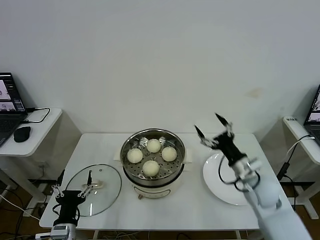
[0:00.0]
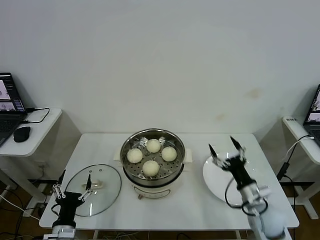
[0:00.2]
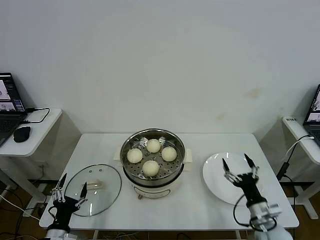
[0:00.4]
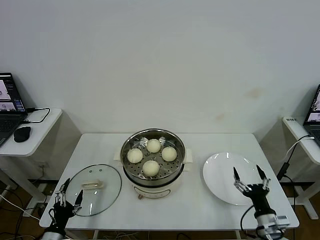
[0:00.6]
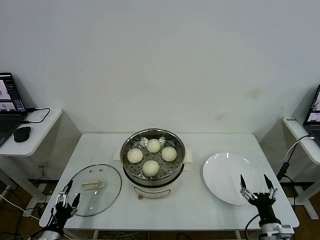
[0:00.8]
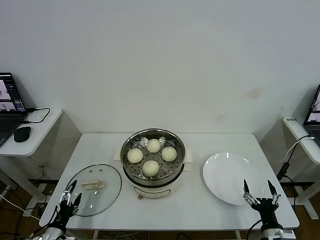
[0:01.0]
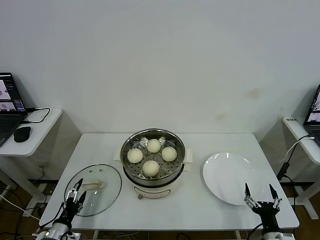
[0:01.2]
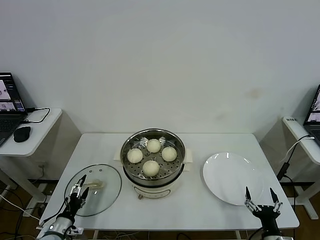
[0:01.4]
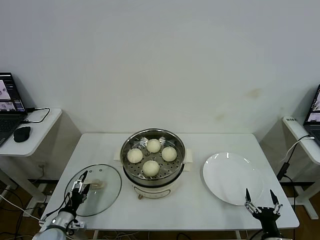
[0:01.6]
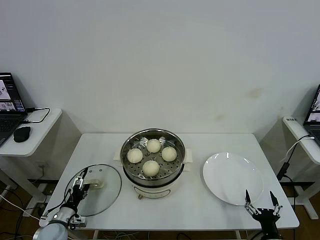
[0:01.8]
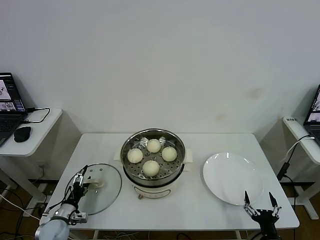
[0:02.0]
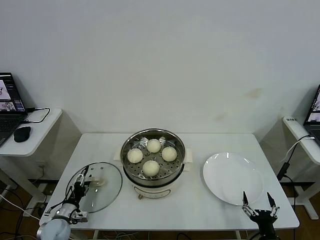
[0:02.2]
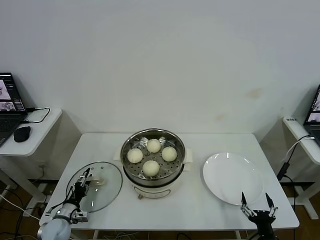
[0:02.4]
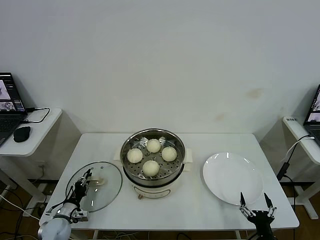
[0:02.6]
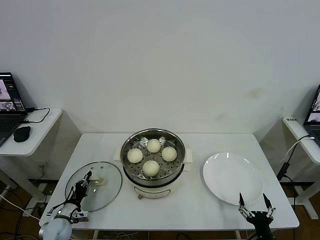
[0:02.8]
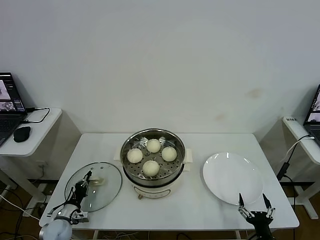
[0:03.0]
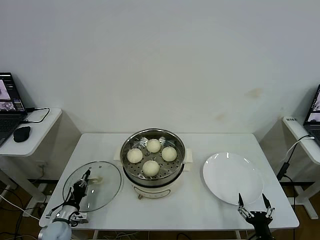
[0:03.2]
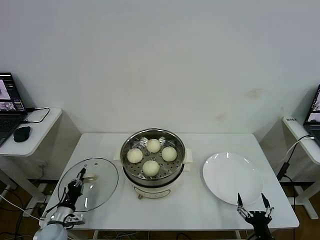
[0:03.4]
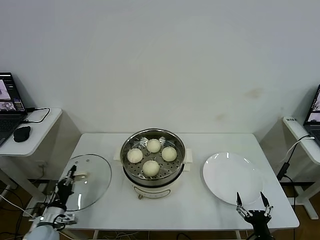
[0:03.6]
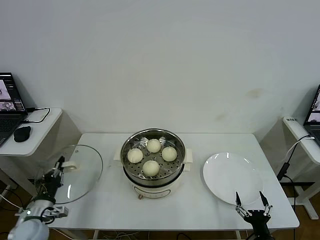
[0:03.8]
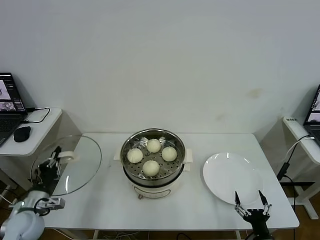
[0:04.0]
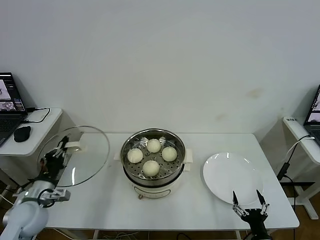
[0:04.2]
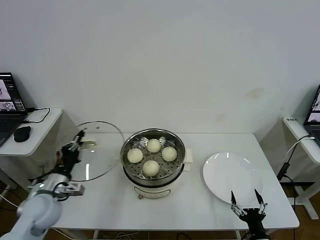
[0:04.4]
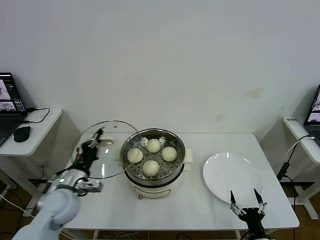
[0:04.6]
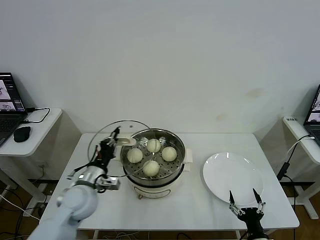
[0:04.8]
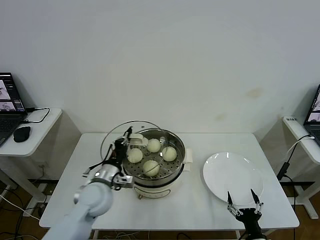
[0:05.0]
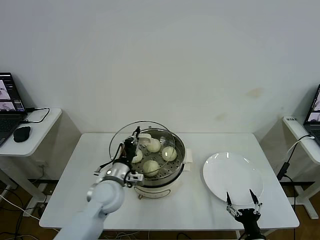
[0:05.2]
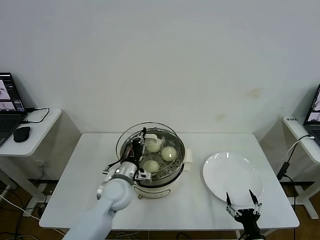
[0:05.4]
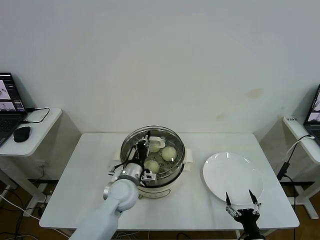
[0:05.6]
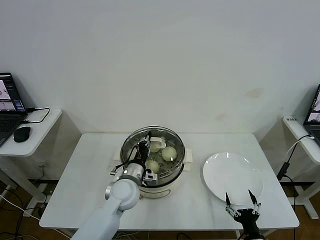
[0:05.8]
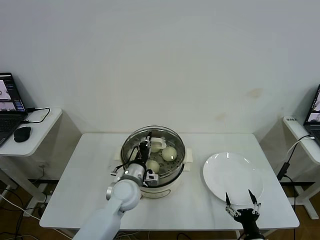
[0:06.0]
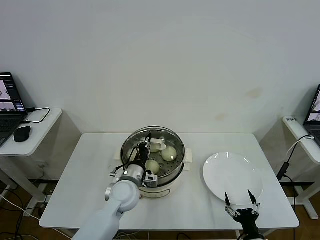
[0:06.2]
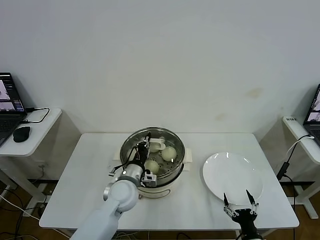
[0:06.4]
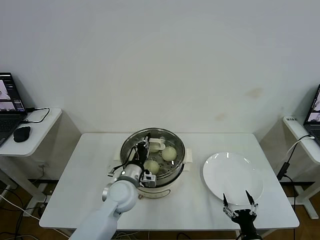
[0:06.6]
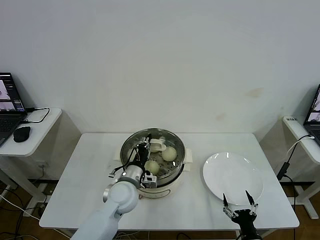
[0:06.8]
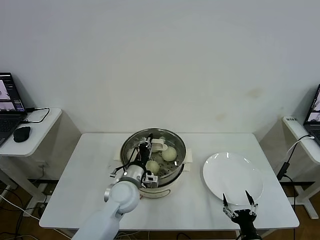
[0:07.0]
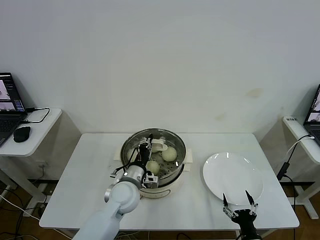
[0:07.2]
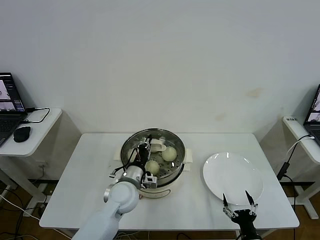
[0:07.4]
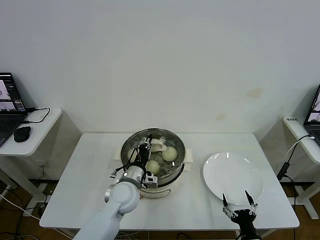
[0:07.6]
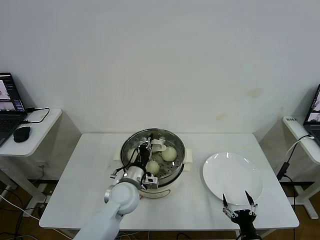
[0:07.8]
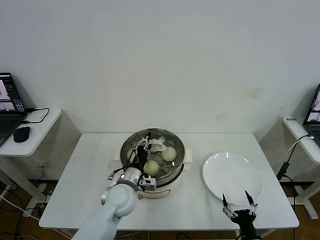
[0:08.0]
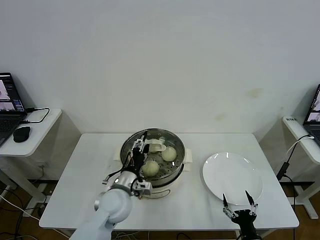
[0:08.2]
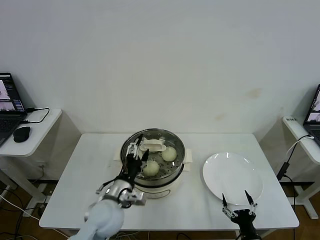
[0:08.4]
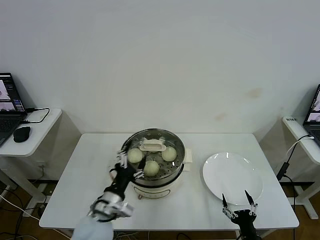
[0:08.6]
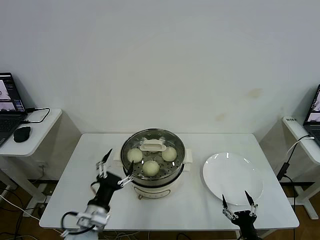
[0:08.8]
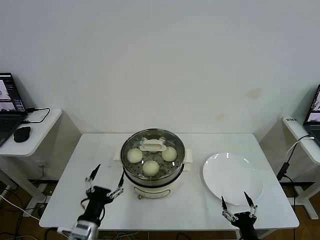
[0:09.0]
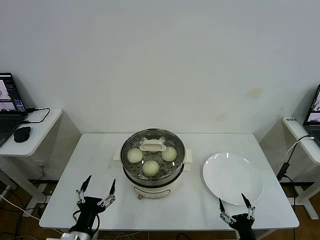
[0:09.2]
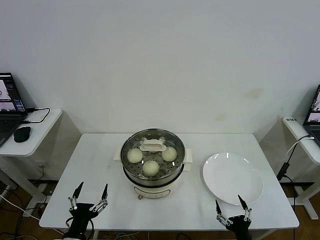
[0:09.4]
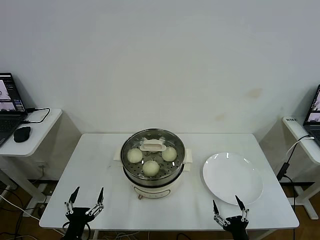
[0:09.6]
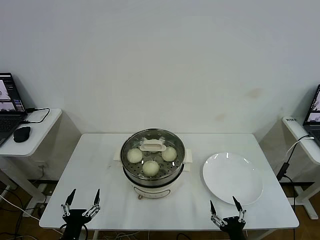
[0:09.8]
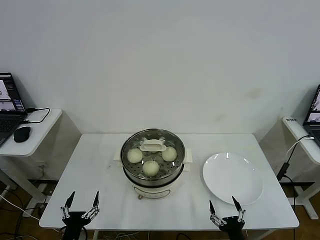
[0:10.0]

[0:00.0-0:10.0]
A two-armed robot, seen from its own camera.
Step, 0:00.0 to 0:02.8: Grasp the pot lid with left gripper.
Step, 0:03.0 to 0:08.2: Place the pot lid on the steamer with left gripper.
0:00.0 to 0:01.4: The left gripper goes about 15 cm to the left and downward; the right gripper goes about 25 cm backward and downward.
0:01.4 to 0:02.8: The left gripper goes some 5 cm forward, and closes.
0:02.8 to 0:04.2: The left gripper shifts roughly 20 cm upward.
0:04.2 to 0:05.8: The left gripper goes about 25 cm to the right.
0:05.8 to 0:07.2: Both grippers stay about where they are.
0:07.2 to 0:08.6: The left gripper goes roughly 10 cm backward and to the left, and opens its fingers.
0:08.6 to 0:10.0: The left gripper shifts roughly 20 cm backward, to the left and downward. The right gripper shifts by approximately 5 cm.

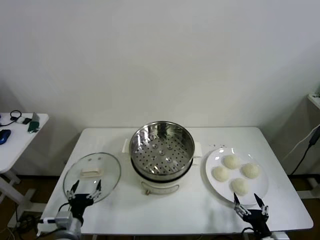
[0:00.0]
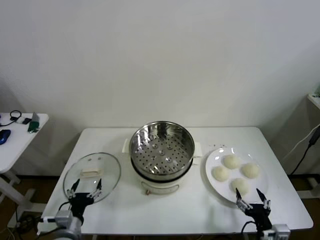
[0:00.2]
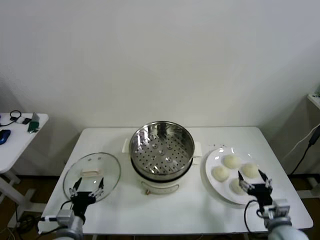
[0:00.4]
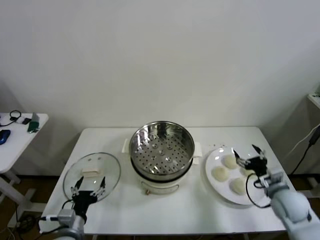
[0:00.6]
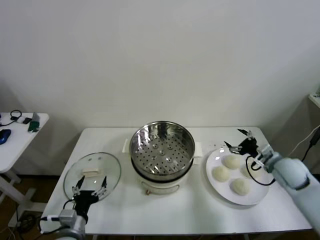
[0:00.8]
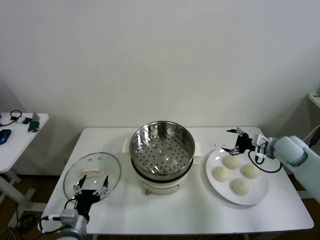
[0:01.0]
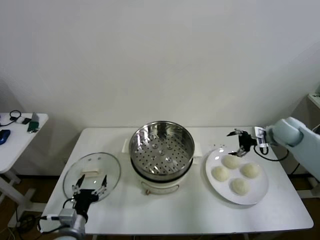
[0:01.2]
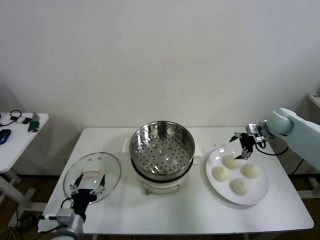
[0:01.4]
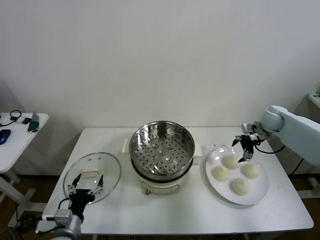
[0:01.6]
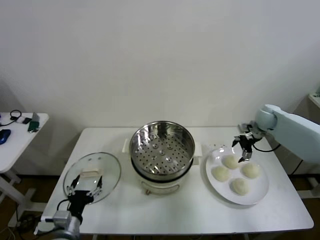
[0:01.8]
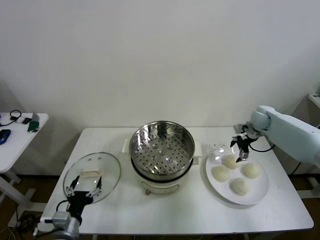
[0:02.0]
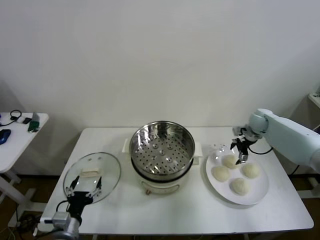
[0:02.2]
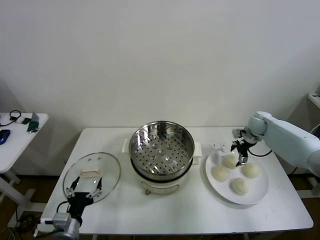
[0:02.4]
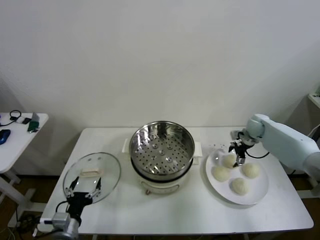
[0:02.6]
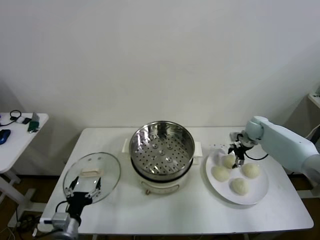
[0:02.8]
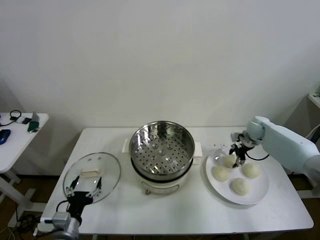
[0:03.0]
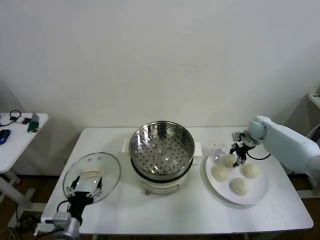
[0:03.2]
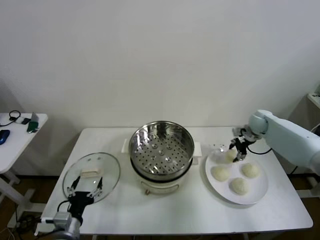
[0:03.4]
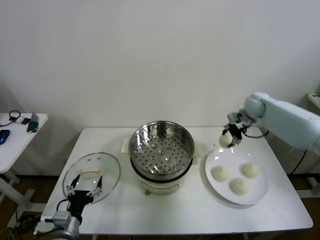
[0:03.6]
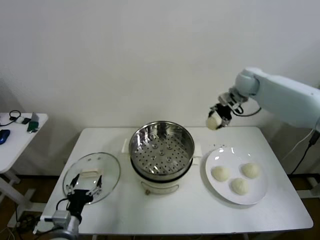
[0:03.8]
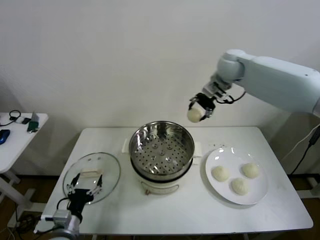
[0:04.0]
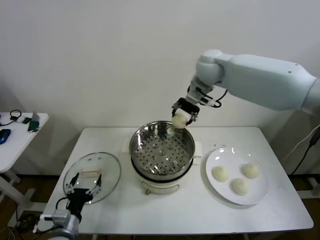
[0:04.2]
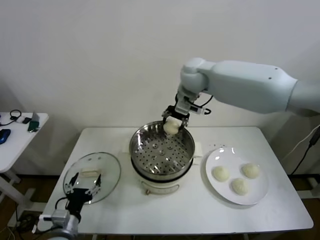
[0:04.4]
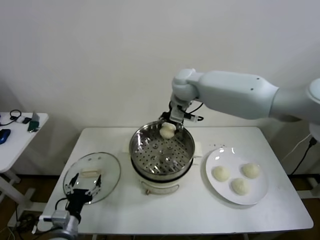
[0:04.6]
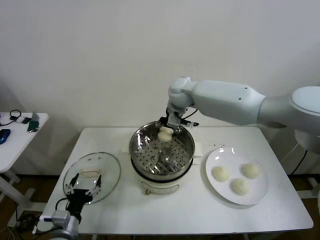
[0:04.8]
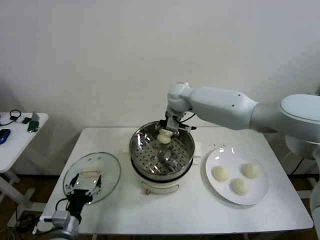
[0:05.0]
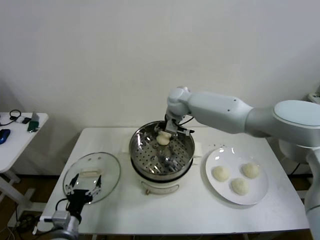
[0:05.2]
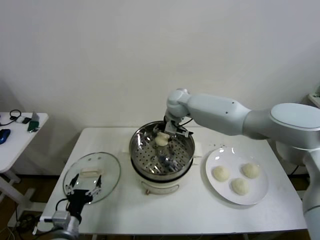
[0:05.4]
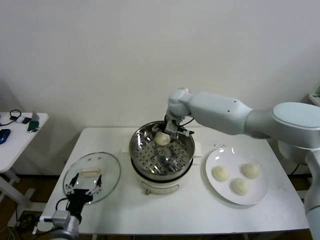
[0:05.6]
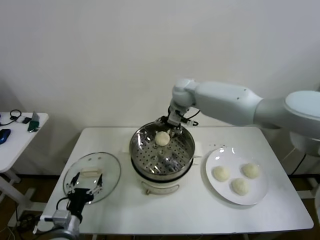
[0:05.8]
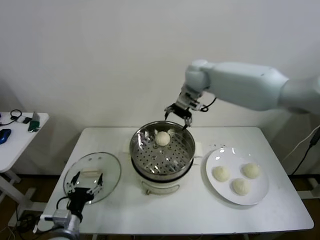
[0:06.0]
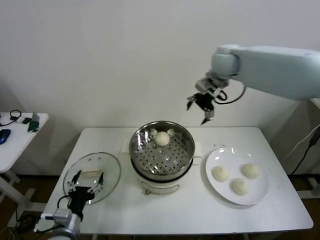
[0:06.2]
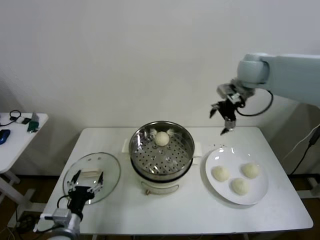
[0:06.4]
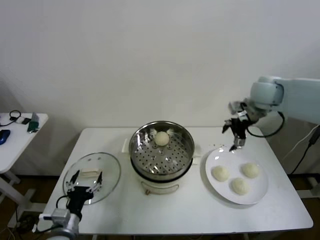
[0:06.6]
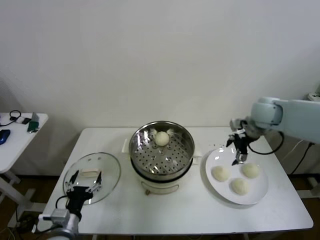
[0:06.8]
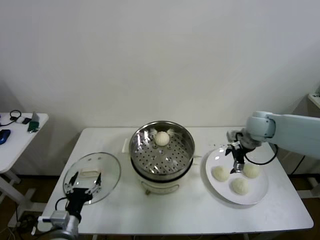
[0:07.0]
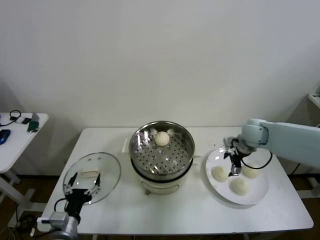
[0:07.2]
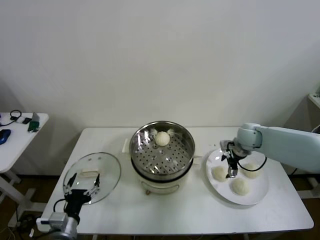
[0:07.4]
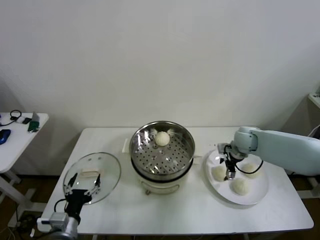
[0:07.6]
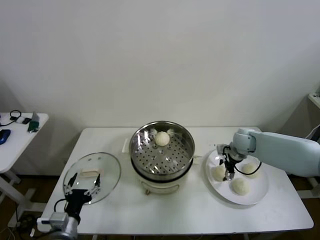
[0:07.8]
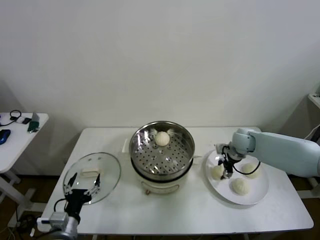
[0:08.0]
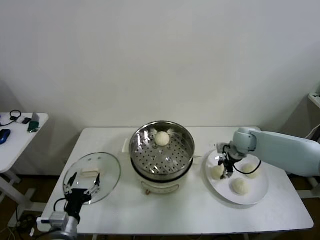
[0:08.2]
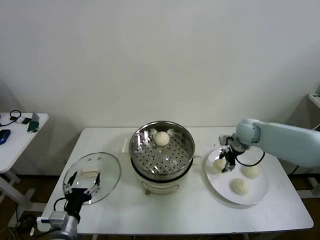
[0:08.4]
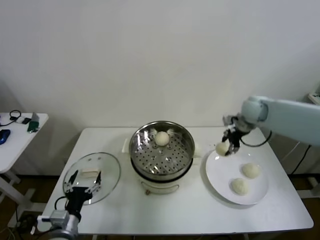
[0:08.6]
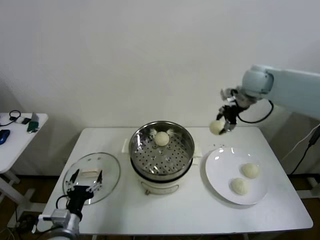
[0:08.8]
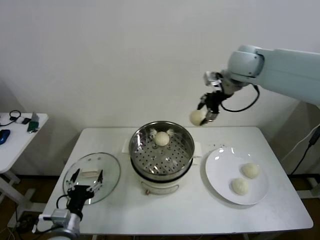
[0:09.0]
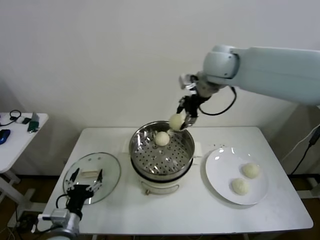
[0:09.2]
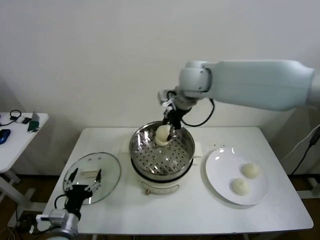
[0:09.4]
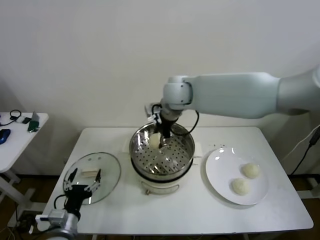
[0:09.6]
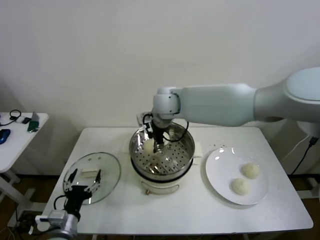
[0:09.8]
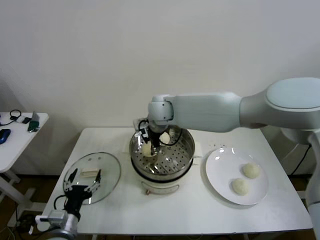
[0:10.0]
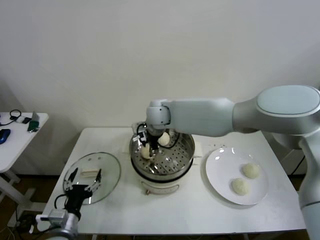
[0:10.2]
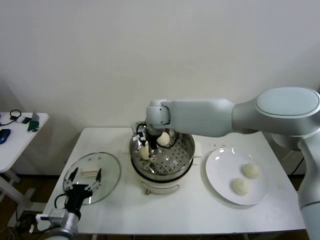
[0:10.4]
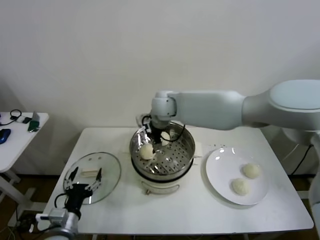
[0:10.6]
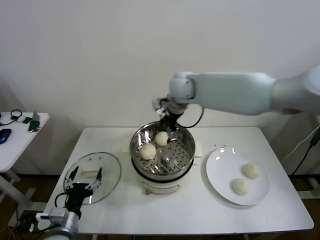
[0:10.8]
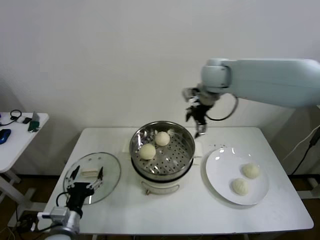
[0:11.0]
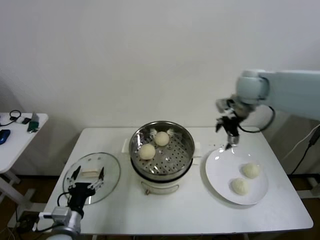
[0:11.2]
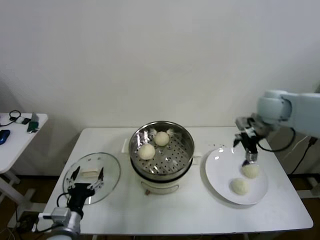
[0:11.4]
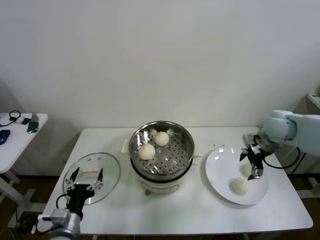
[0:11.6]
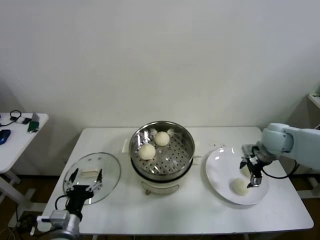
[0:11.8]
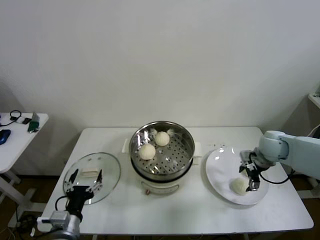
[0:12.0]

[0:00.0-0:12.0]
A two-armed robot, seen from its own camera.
Step, 0:00.0 to 0:03.0: Grasp the baozi in the plate with right gripper.
Step, 0:03.2 to 0:05.6: Place the baozi on the steamer with right gripper.
Step, 0:05.8 to 0:07.8: Grasp the baozi in the plate with right gripper.
Step, 0:08.0 to 0:10.4: Place the baozi on the steamer with right gripper.
0:01.6 to 0:03.0: The right gripper shifts approximately 5 cm downward, and closes its fingers.
0:03.0 to 0:04.4: The right gripper moves to the left and upward, approximately 40 cm.
0:04.4 to 0:06.0: The right gripper travels to the right by roughly 5 cm, travels downward and back again, approximately 10 cm each way, and opens up.
0:06.0 to 0:07.6: The right gripper moves downward and to the right, approximately 30 cm.
0:07.6 to 0:09.0: The right gripper moves upward, approximately 30 cm, and closes its fingers.
0:09.0 to 0:10.4: The right gripper travels to the left and downward by some 25 cm, and opens.
0:10.4 to 0:12.0: The right gripper goes some 40 cm to the right.
